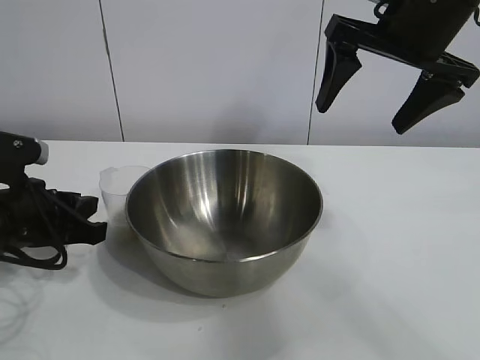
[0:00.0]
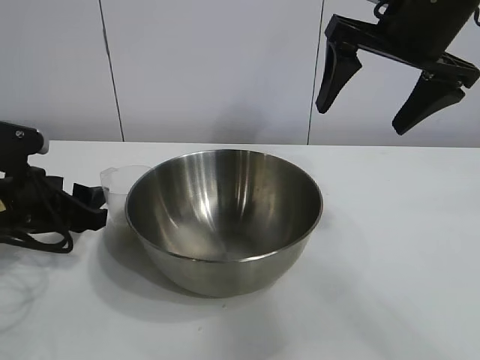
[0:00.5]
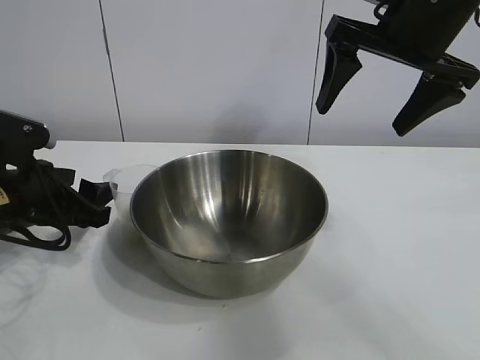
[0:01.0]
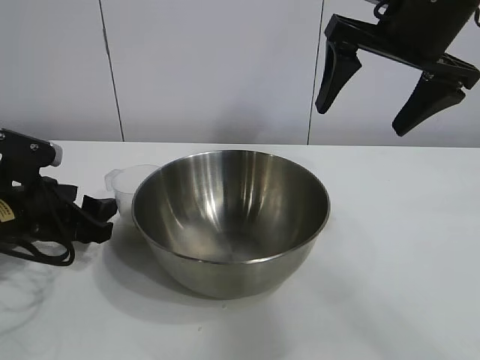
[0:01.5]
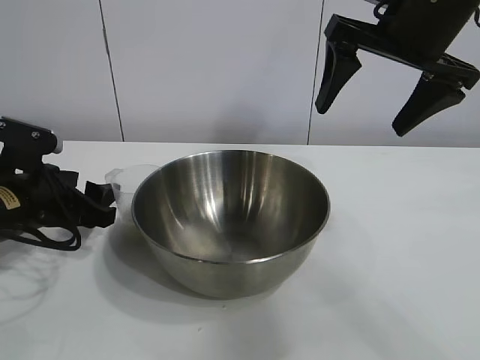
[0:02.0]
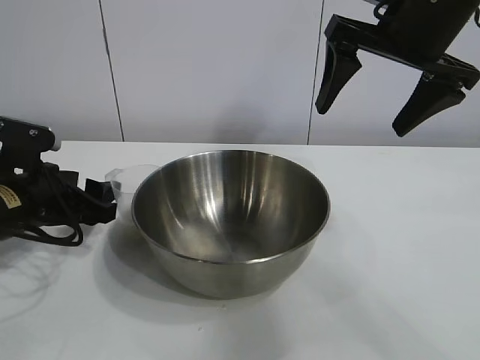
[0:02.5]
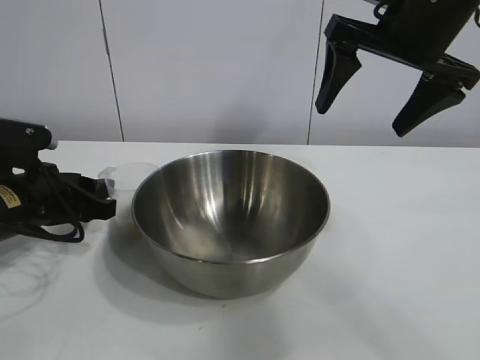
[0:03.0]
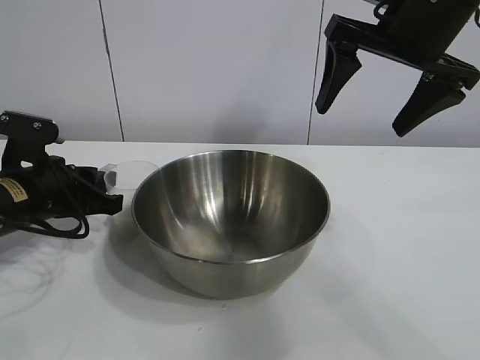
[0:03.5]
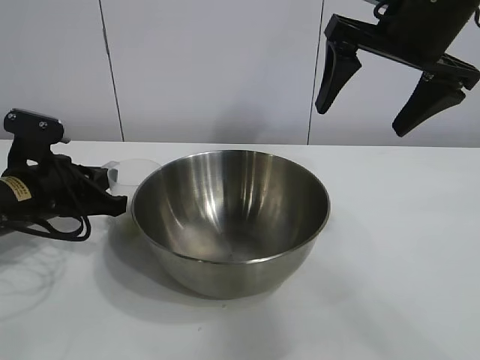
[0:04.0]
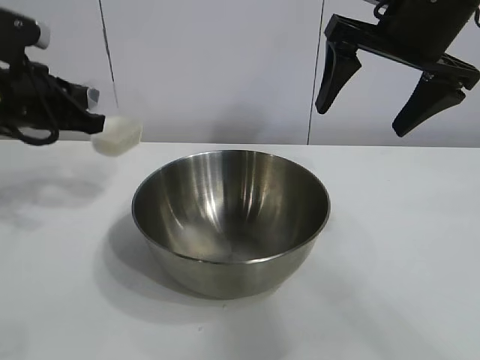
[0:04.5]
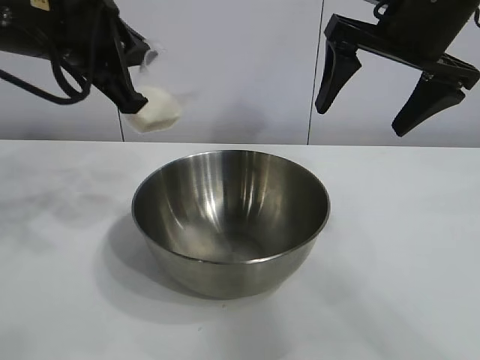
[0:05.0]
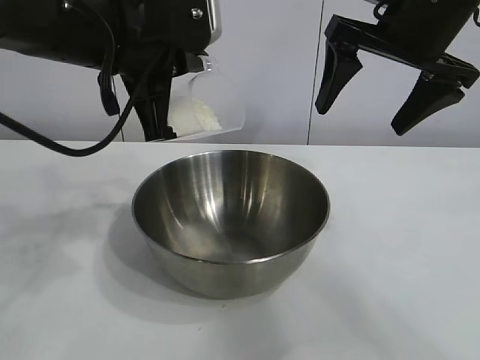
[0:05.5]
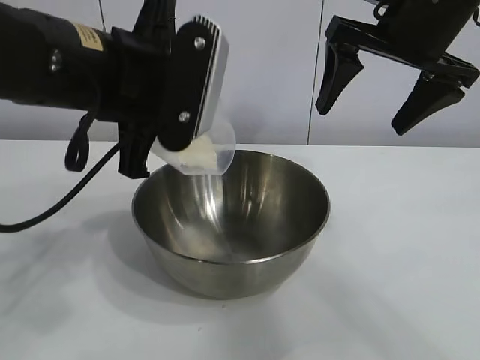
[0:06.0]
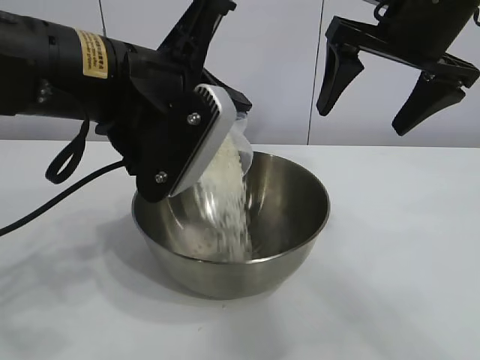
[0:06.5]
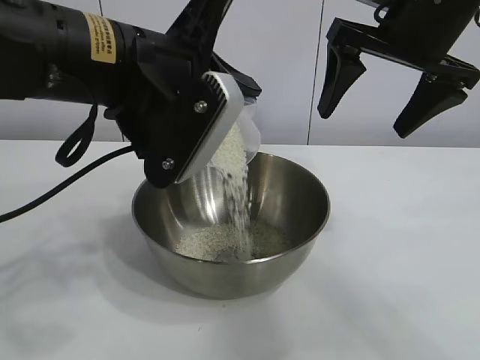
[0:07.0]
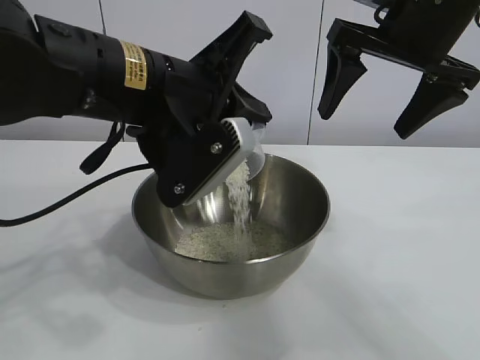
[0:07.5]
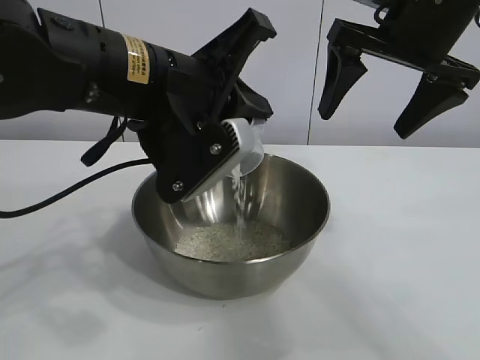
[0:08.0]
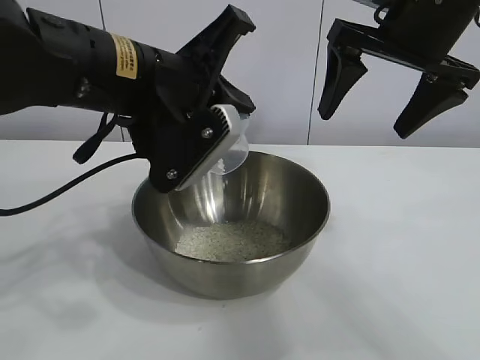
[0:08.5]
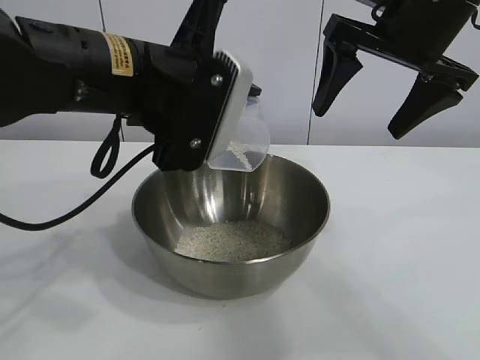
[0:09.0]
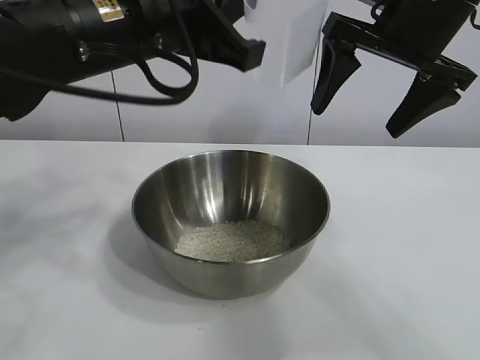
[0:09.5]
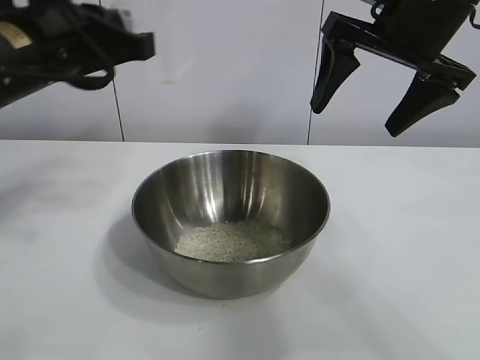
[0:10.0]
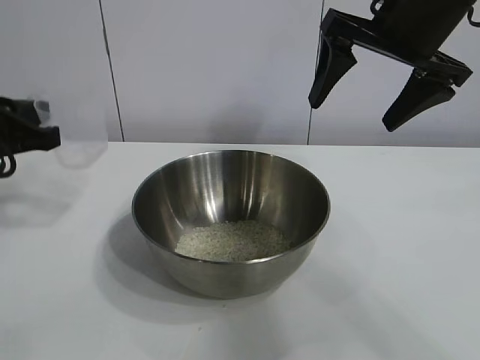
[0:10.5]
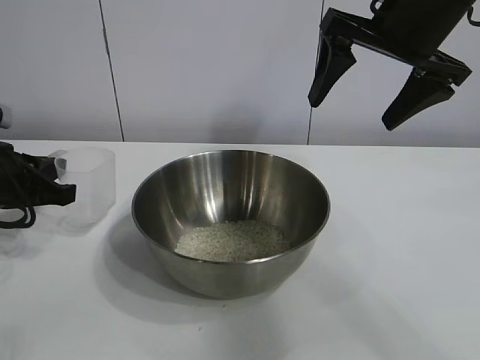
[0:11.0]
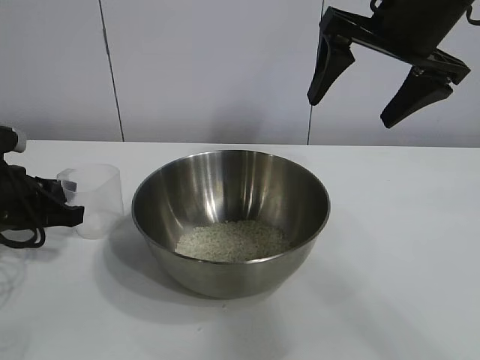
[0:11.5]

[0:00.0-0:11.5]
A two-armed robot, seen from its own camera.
Task of the whole recording: the right gripper grasp the rice container and place it in the center of the table, the left gripper grasp the rice scoop and pour the rice into the rice container.
Step, 0:00.0 to 0:03.5: Grasp the cup with rice in it with left gripper.
Step, 0:04.0 to 0:08.5: Pour the rice from the cup into the bowl with the left gripper.

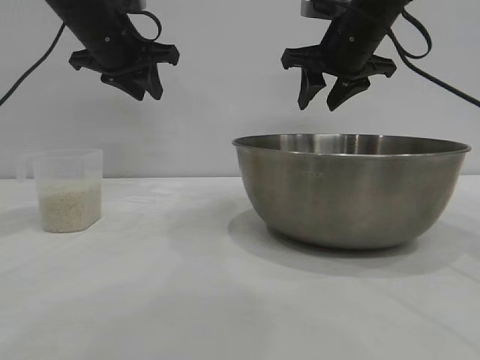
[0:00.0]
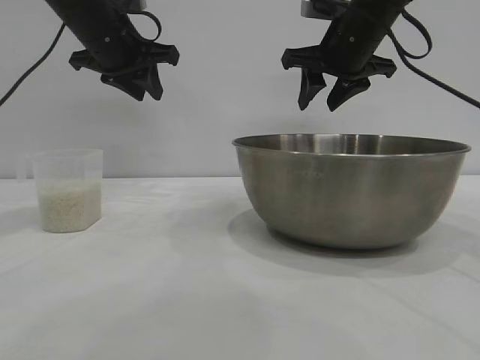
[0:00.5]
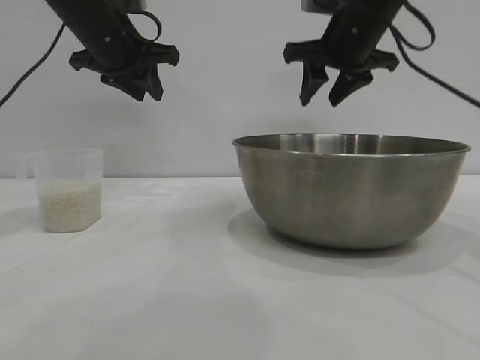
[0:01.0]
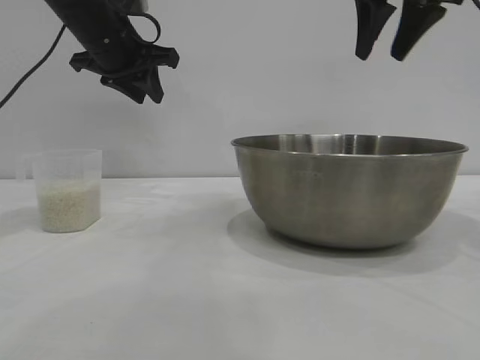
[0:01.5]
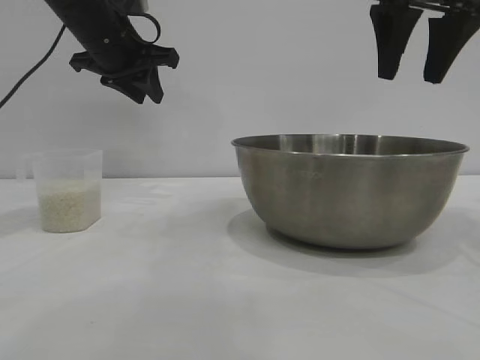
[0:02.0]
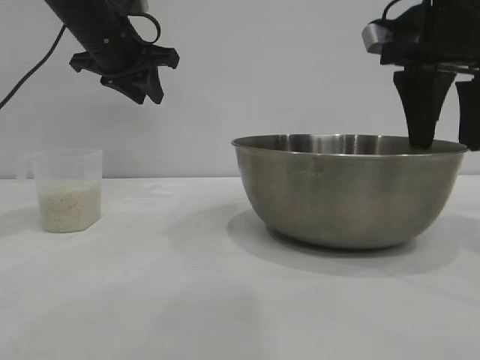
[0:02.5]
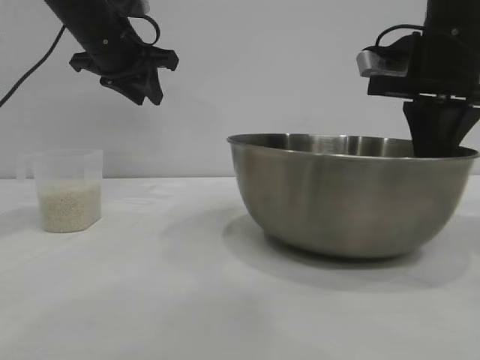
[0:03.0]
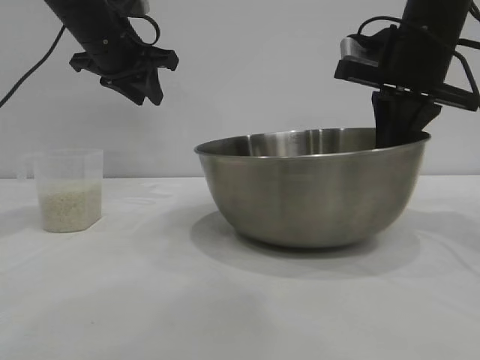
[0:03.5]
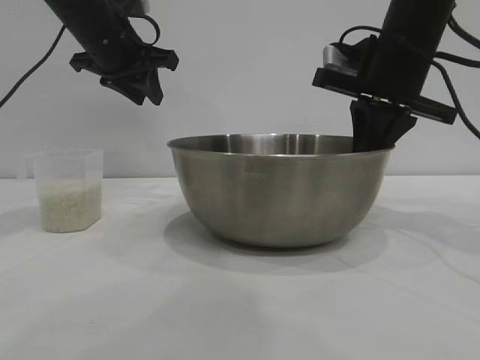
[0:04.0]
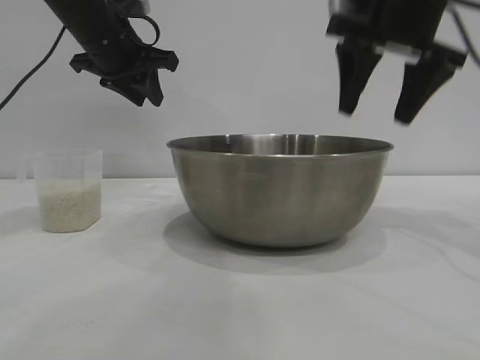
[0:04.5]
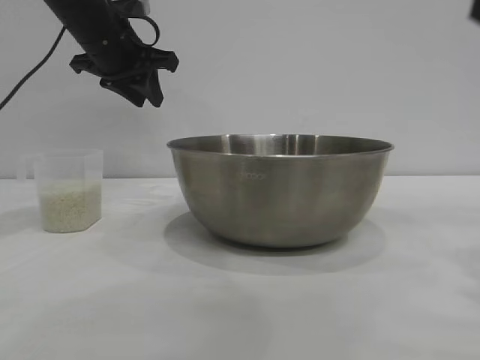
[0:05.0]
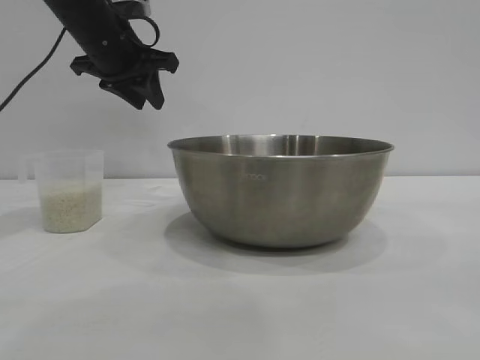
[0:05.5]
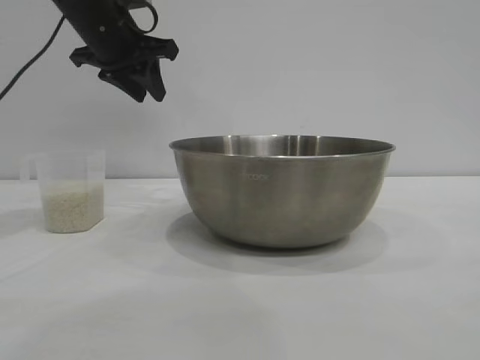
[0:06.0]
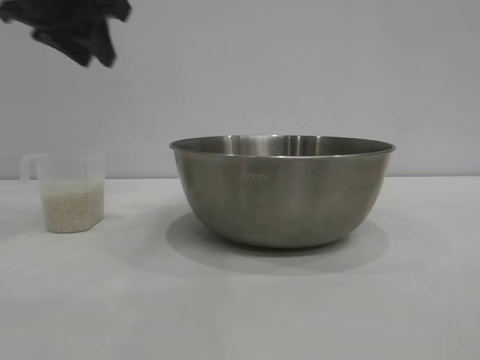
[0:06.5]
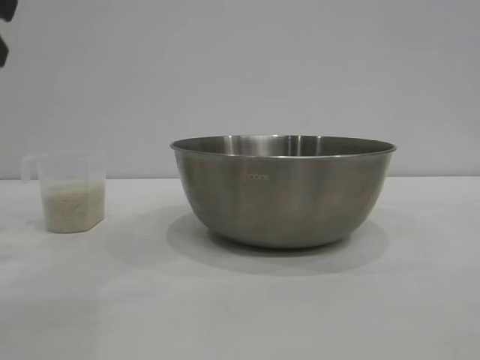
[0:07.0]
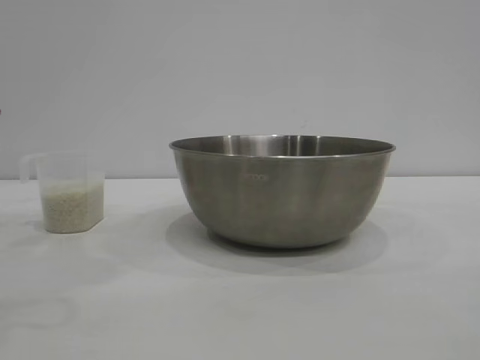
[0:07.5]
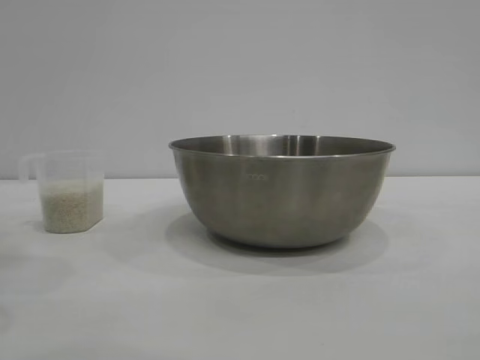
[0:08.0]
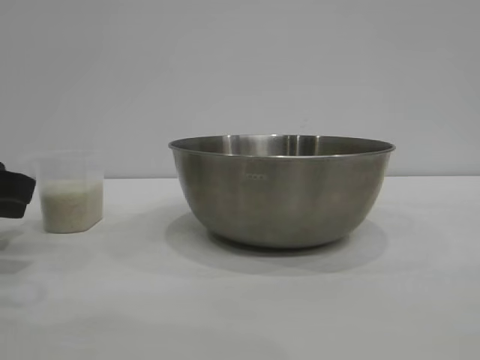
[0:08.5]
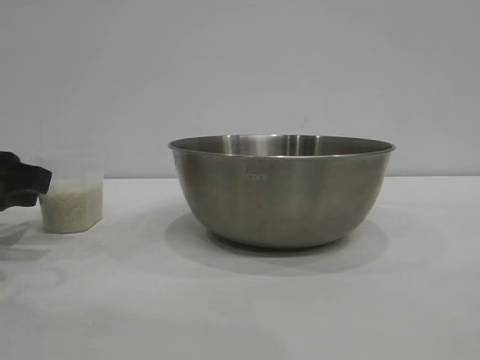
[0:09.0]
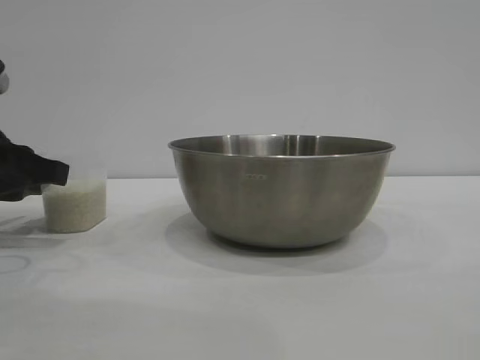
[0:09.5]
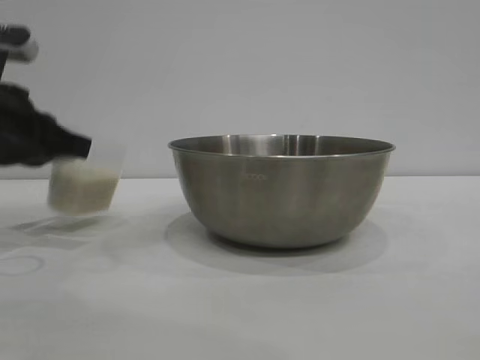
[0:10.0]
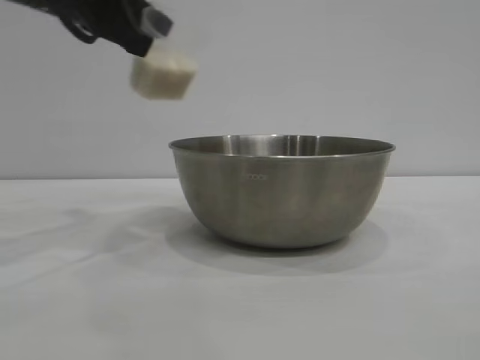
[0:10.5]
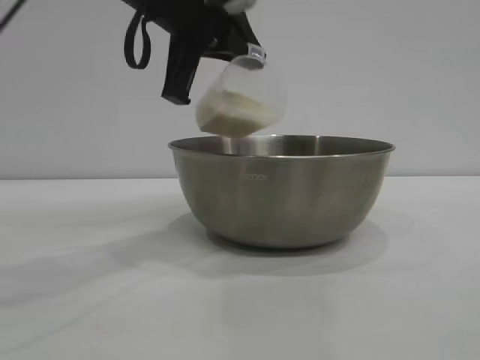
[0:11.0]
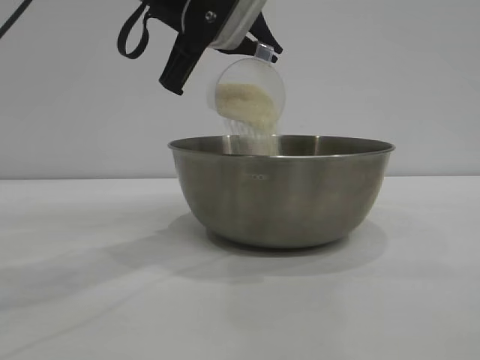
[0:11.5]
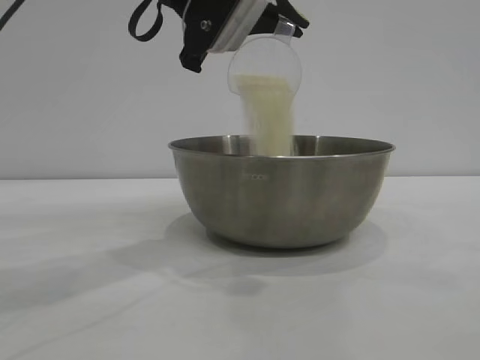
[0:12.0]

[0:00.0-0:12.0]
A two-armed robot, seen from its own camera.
Task of the whole recording: the right gripper grasp the rice container and place it in the center of the table, the left gripper grasp the rice scoop and pour the rice into the rice container.
Step, 0:00.0 to 0:04.5: Move the bowl to the center of view with the right gripper.
Step, 0:05.0 to 0:10.0: Pick up the cup with rice in it with the left gripper.

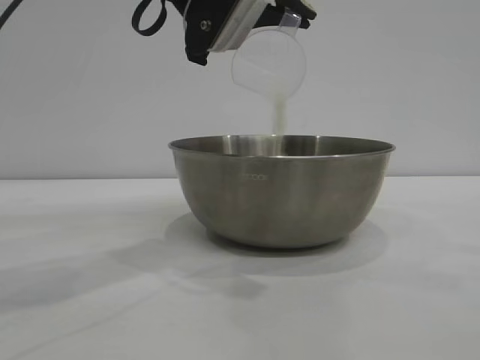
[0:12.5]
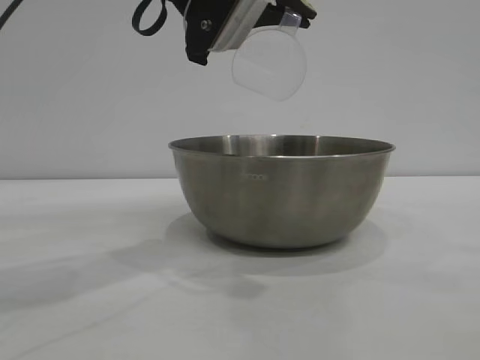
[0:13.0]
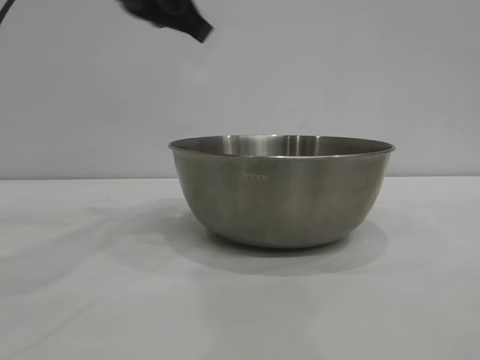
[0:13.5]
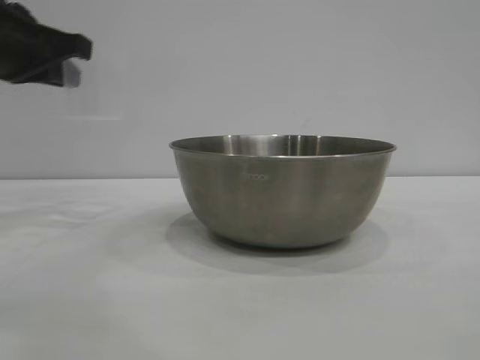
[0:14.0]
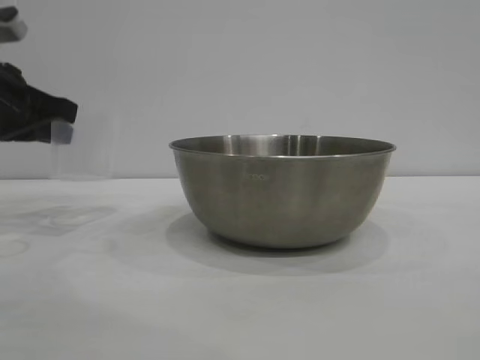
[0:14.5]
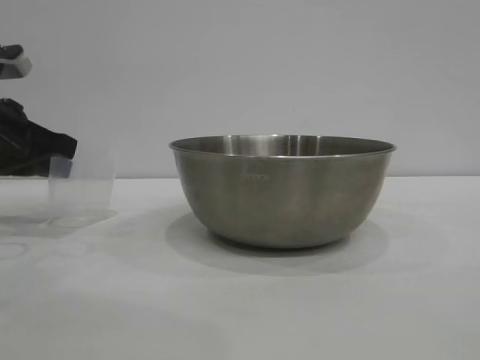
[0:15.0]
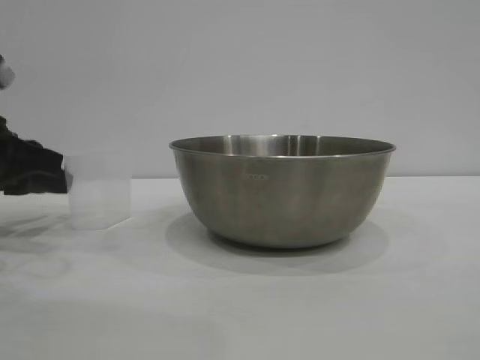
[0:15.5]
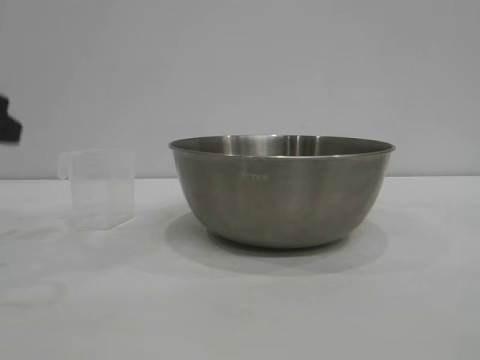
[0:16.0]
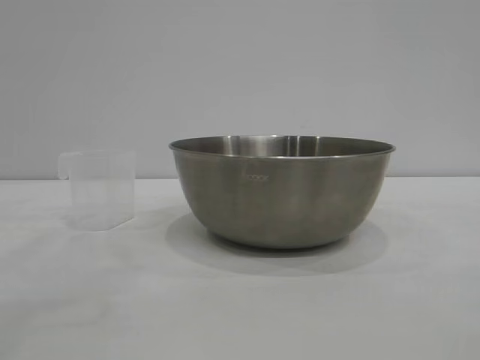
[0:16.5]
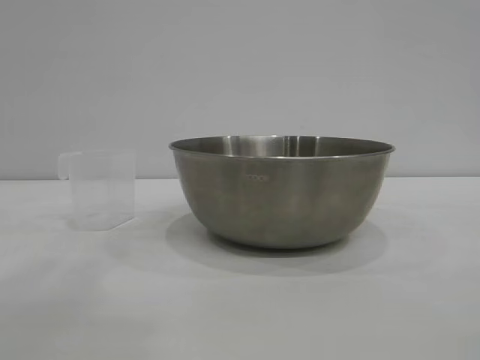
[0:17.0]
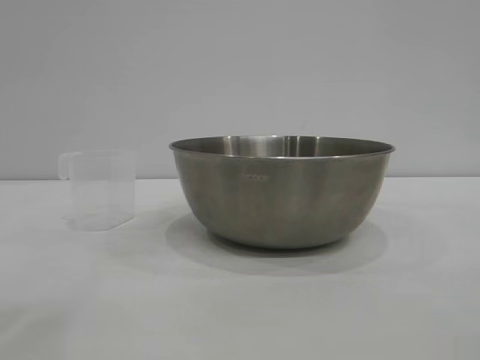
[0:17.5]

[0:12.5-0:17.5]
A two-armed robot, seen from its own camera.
Task of the whole recording: the right gripper grasp the rice container and place it in the center of the table, the left gripper grasp the rice scoop and pour the rice into the rice container.
Step, 0:13.5 to 0:15.5: Place the cup on the table with the left gripper.
